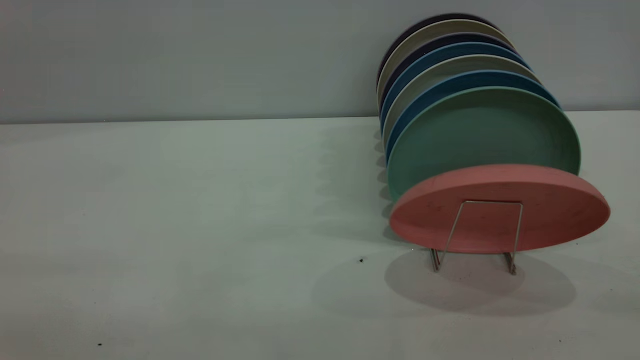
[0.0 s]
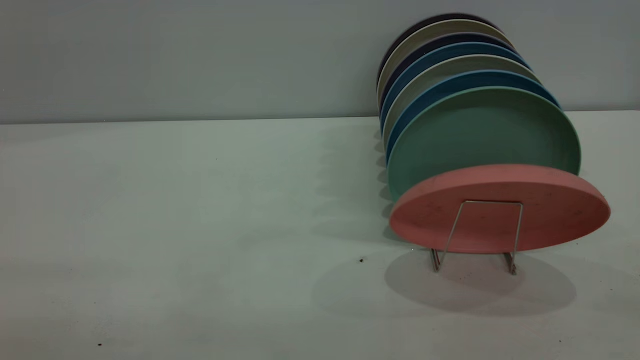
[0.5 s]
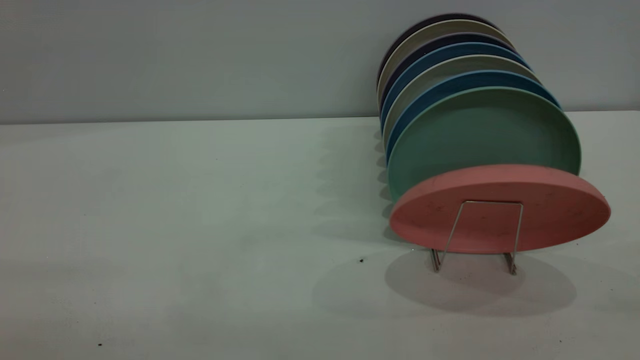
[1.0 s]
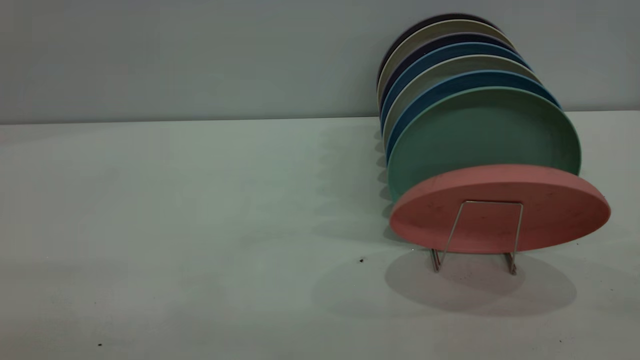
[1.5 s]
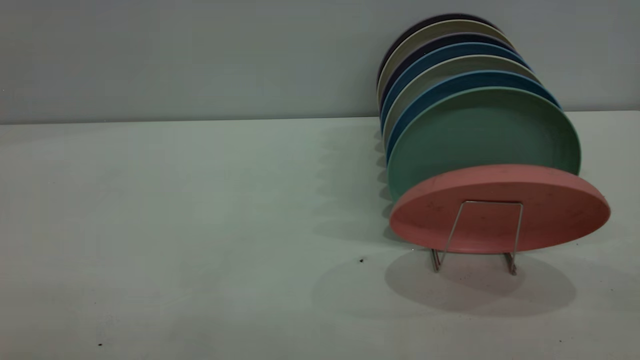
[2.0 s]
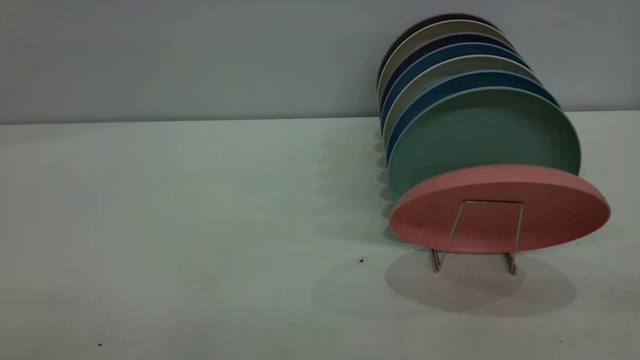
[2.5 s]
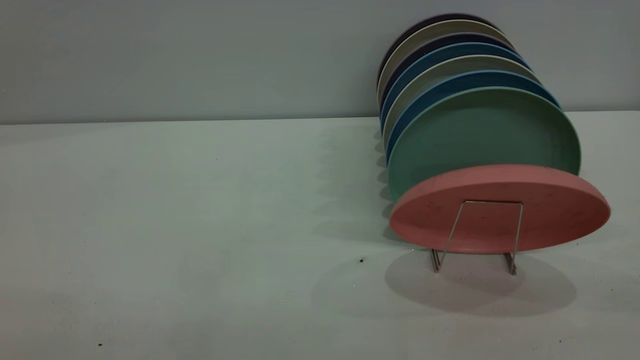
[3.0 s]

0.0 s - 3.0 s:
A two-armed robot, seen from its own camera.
Task of the whole recording: put the plate on the plate rack.
0.0 s - 1.5 s: Both grippers stay about where they are.
